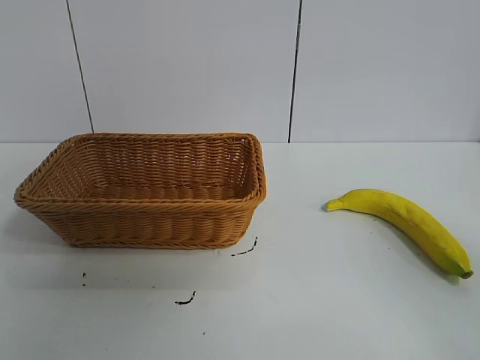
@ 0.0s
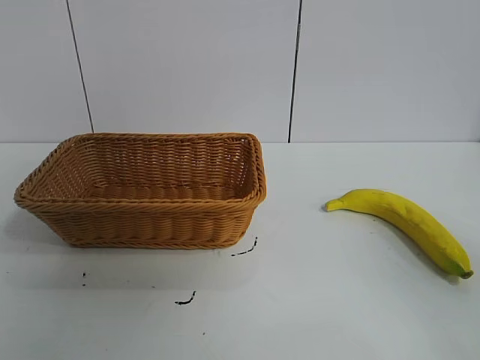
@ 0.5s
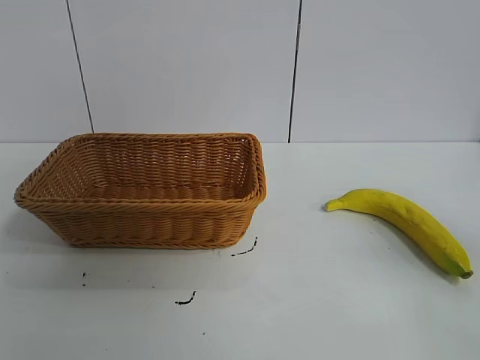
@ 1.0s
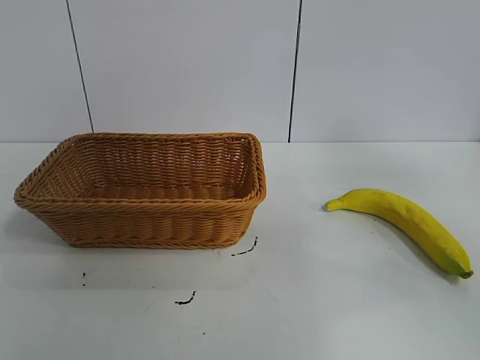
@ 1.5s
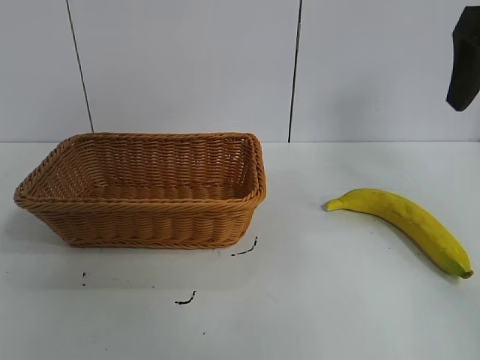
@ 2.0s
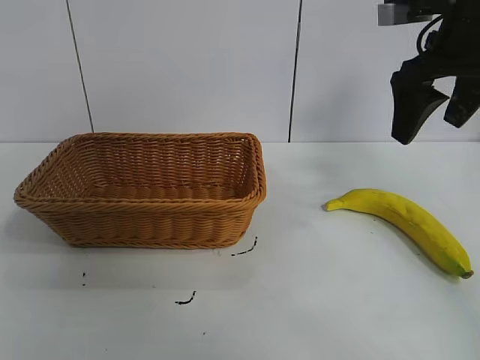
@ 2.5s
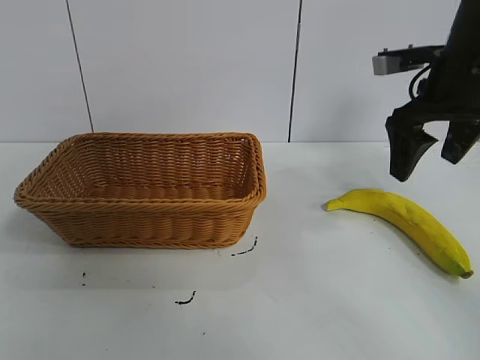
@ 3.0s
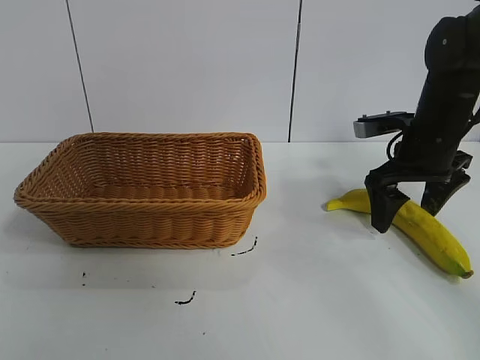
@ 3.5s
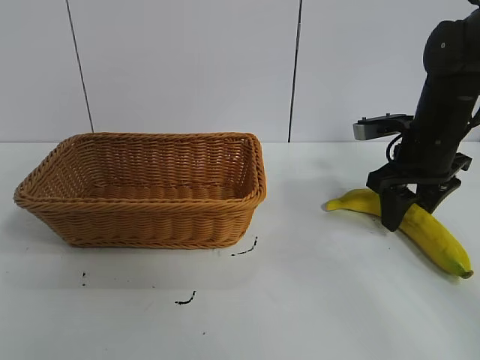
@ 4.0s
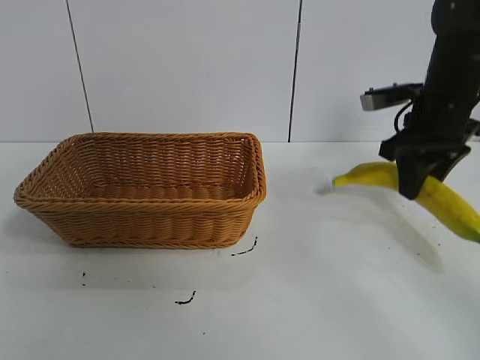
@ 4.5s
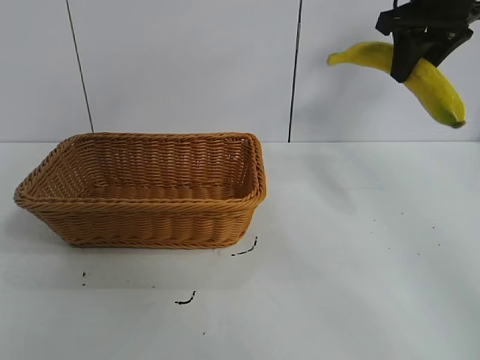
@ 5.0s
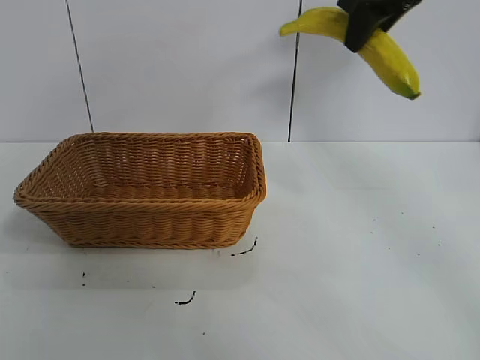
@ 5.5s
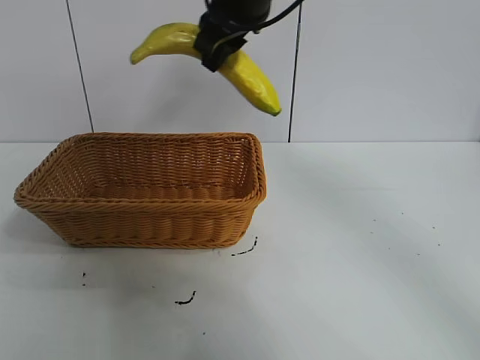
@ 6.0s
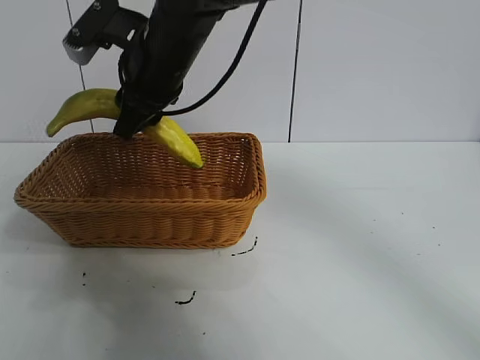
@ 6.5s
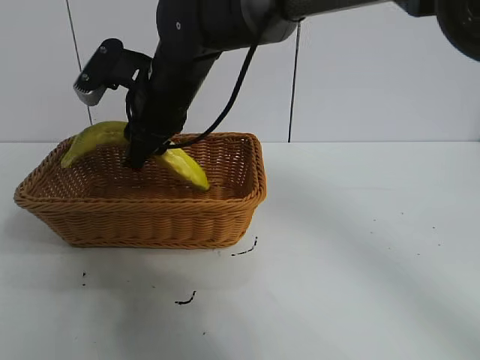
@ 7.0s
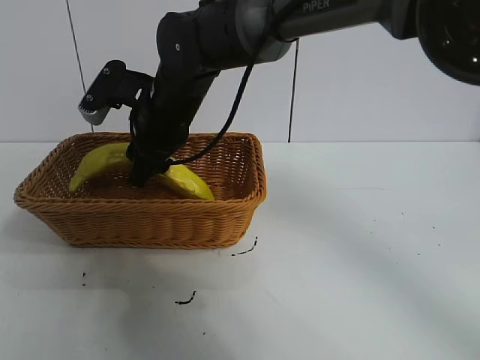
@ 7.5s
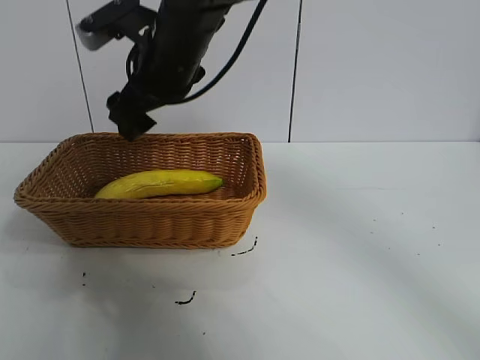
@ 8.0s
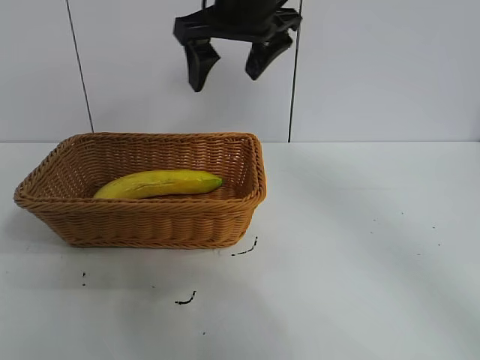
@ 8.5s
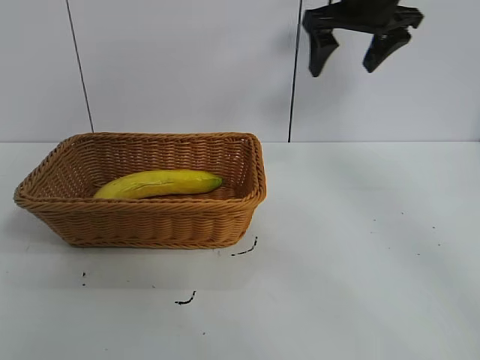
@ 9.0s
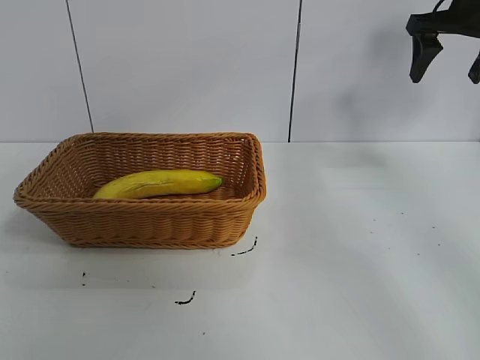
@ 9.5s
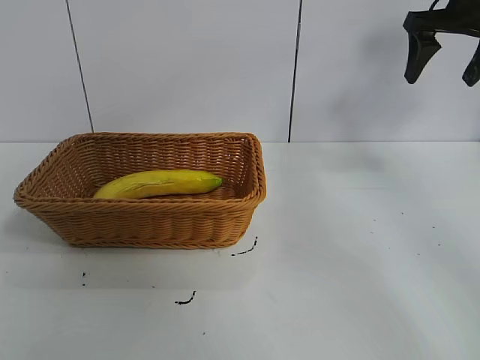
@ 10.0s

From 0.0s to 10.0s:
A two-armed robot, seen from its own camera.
Task of the whole recording: pick up the banana and put it into the basket.
Step, from 1.0s to 4.0s: Grasp the banana with right gripper.
Step, from 4.5s to 7.5s: Place the banana in the basket with right gripper.
